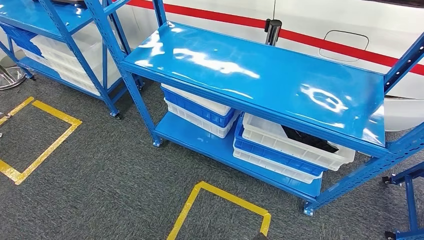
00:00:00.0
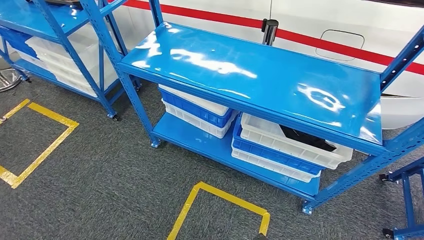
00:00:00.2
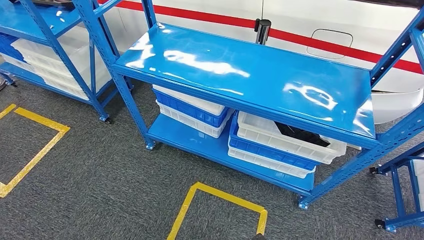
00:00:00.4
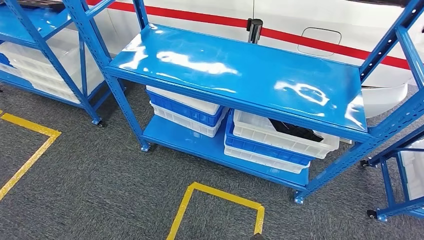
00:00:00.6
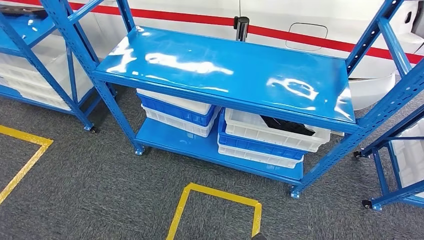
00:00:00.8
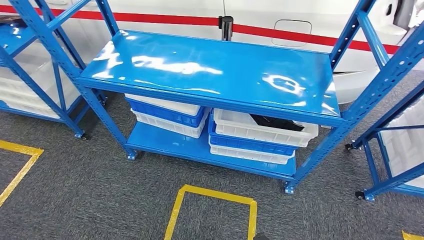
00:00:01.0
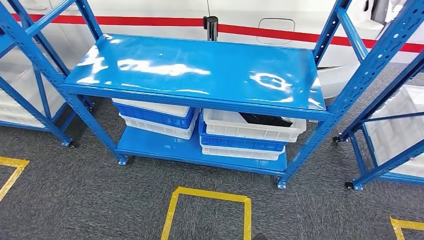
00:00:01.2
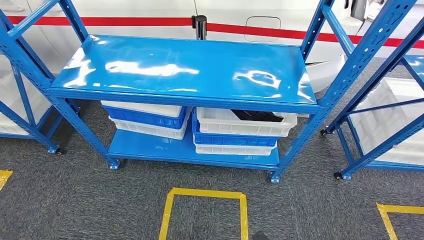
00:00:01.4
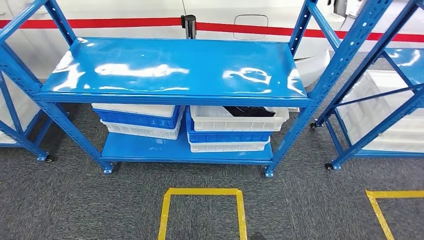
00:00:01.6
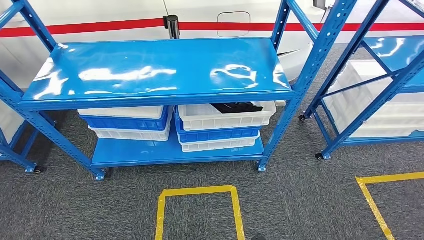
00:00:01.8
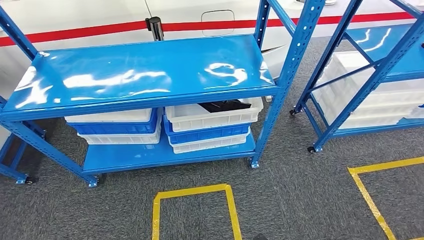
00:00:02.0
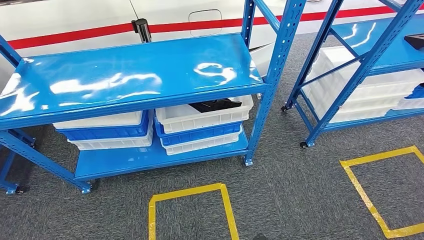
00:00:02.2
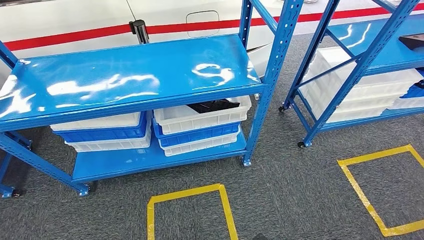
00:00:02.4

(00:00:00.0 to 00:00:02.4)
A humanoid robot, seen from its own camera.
Step, 00:00:00.0 - 00:00:02.4: Return to the initial position at the shelf.
